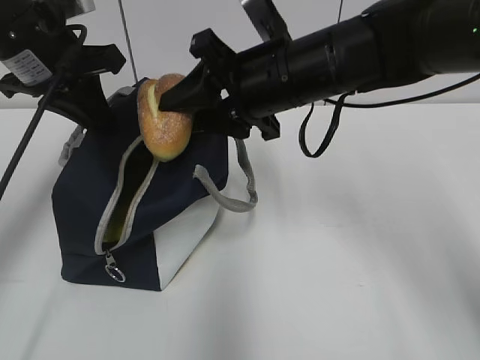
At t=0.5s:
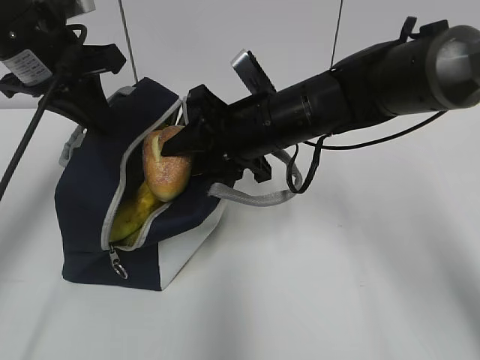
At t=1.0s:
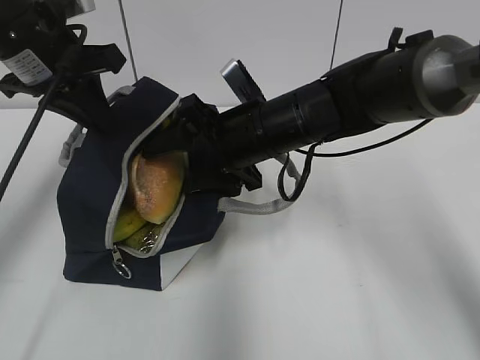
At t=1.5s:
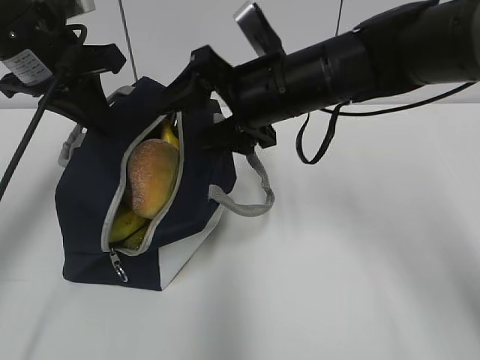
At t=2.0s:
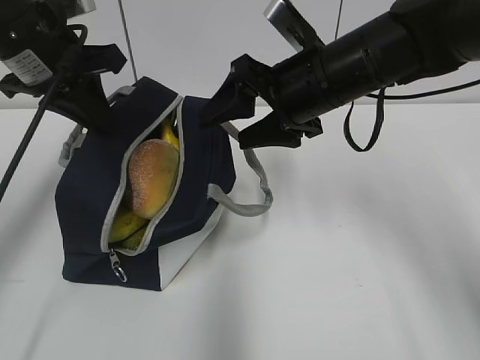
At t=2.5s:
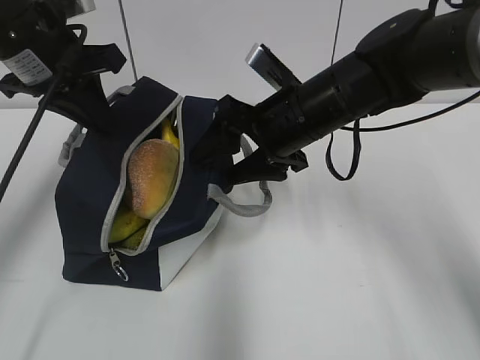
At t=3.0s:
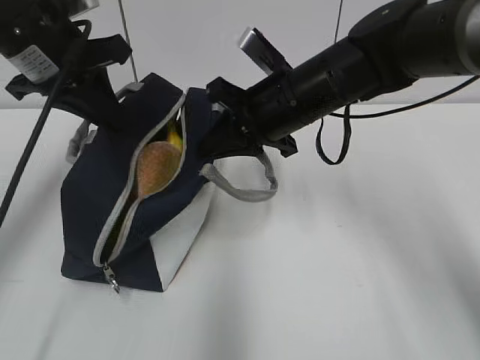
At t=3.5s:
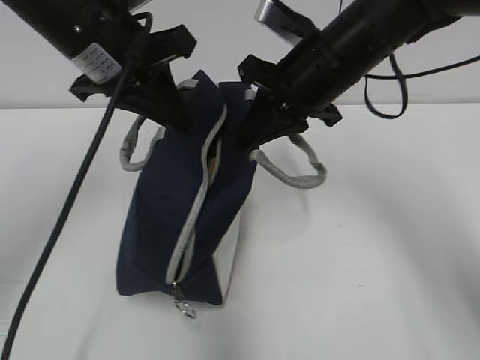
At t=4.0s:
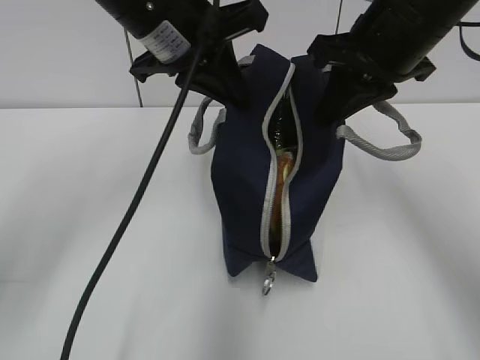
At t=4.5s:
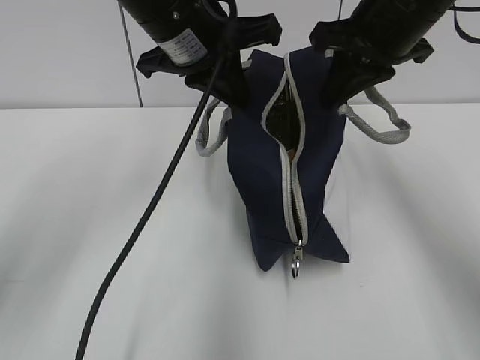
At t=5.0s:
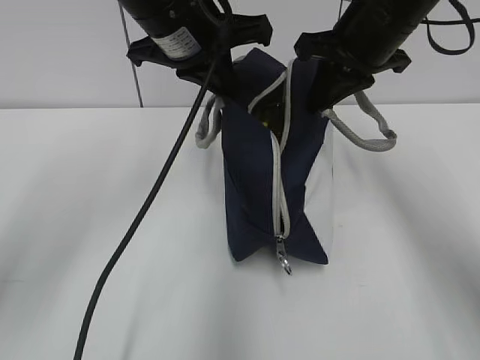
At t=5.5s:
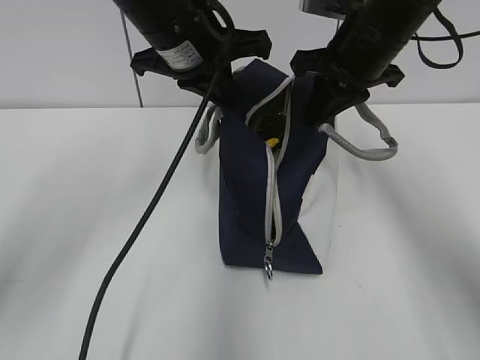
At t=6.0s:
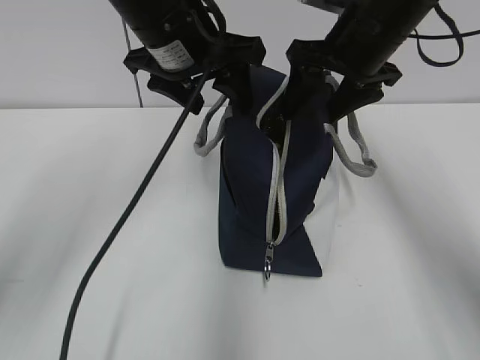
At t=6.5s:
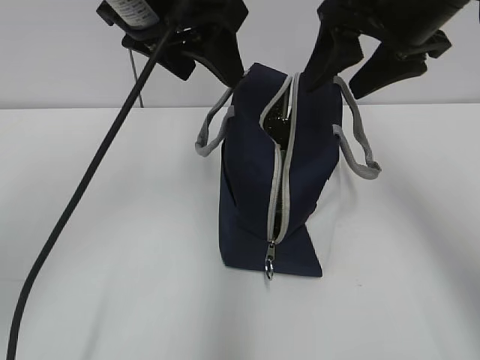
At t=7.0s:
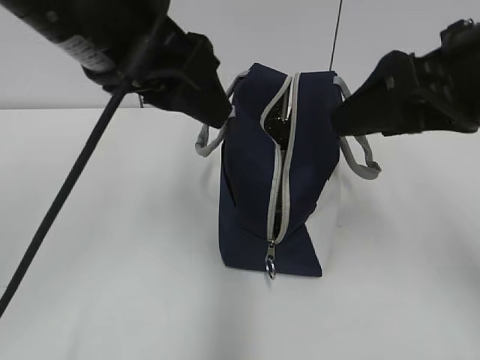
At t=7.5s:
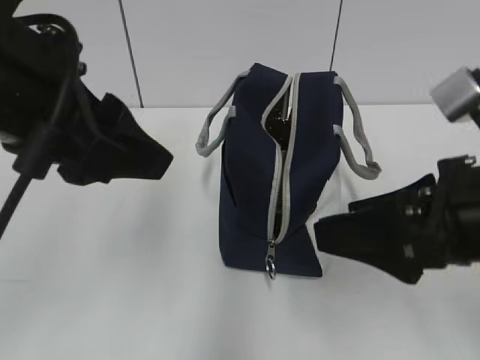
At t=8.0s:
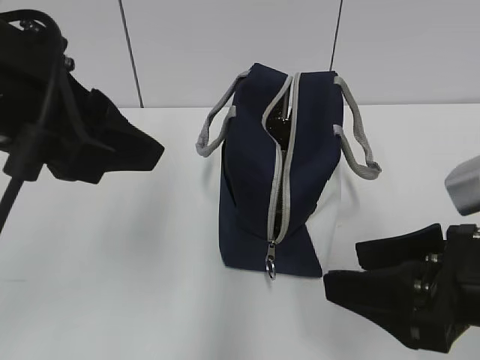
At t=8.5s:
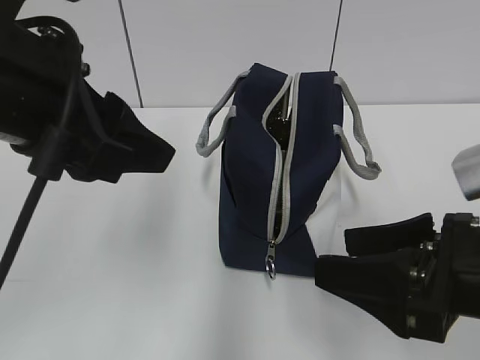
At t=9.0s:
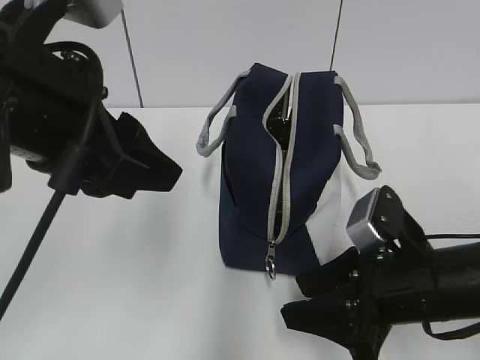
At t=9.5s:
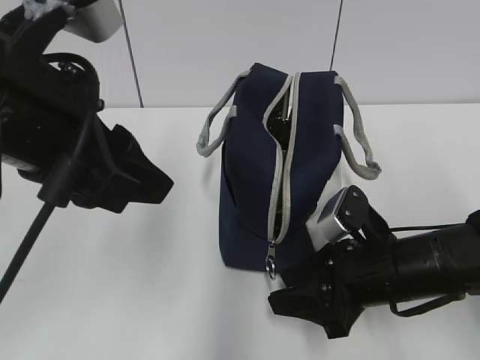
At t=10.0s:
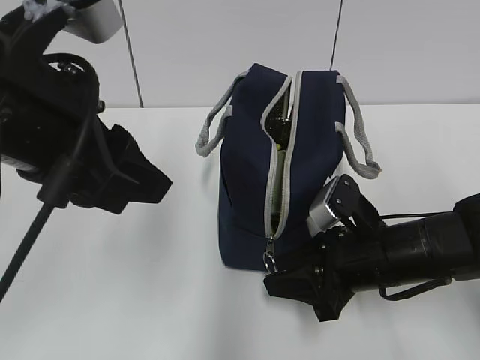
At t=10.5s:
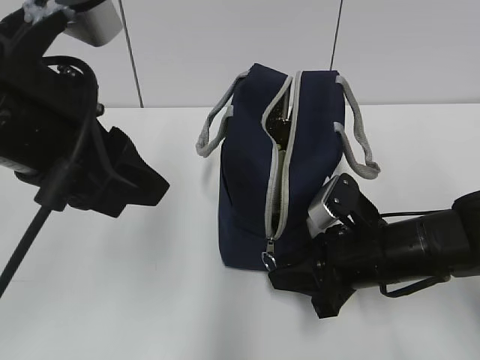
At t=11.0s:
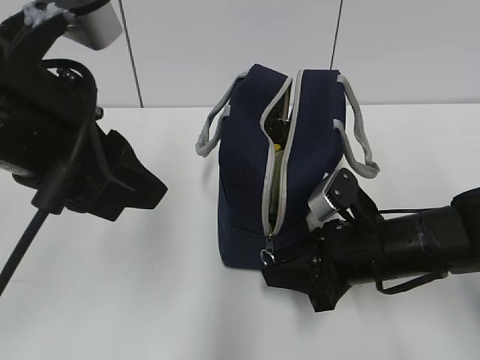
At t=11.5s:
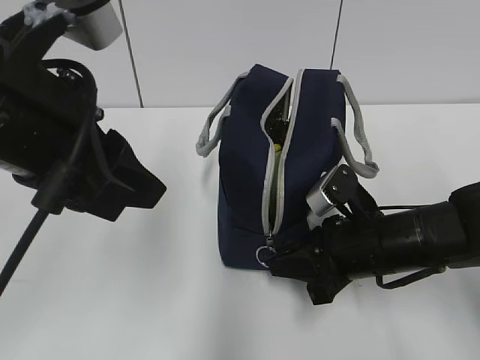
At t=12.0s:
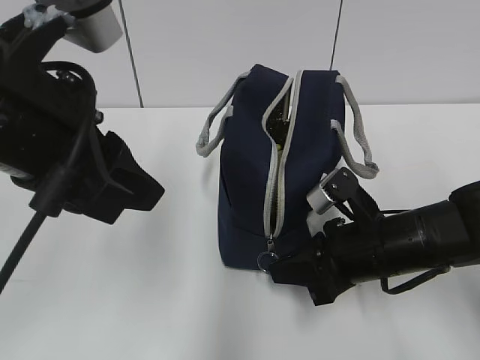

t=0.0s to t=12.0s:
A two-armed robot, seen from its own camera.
Step, t=1.5s to t=2.5s: Grab the lunch bag with your right hand.
Step, t=3.0s to t=5.5s: Move the lunch bag to the right.
t=0.0s to t=2.0s: The right gripper opens up.
t=2.0s to t=4.0s: The left gripper moves to the right, roughly 10 cm; the right gripper goes some 10 cm upward and to the right, and closes.
t=4.0s to t=6.0s: The right gripper heads forward, covering some 5 cm, and opens up. Meanwhile the left gripper opens.
t=6.0s to t=8.0s: The right gripper moves backward, about 25 cm, while the left gripper travels backward and to the left by some 20 cm.
t=8.0s to t=10.0s: The right gripper moves forward and downward, about 15 cm, and closes its fingers.
t=10.0s to t=12.0s: The right gripper closes its fingers.

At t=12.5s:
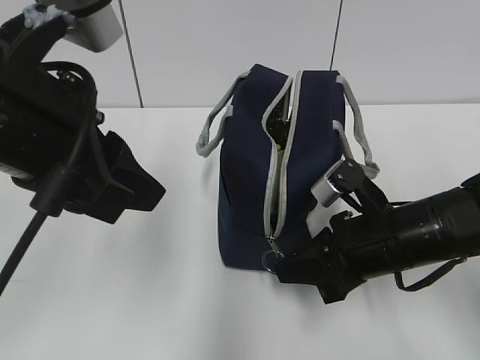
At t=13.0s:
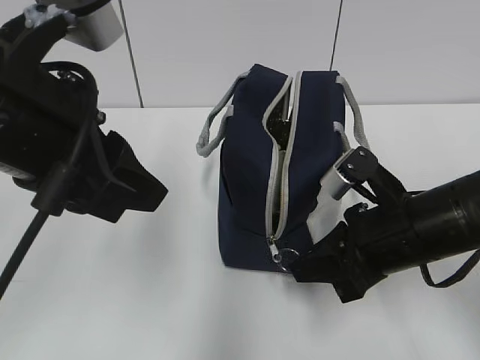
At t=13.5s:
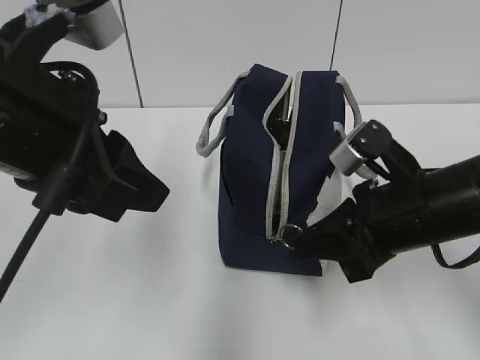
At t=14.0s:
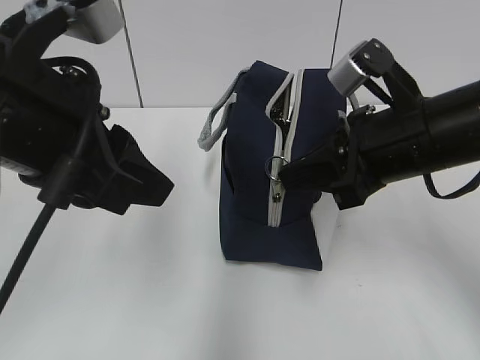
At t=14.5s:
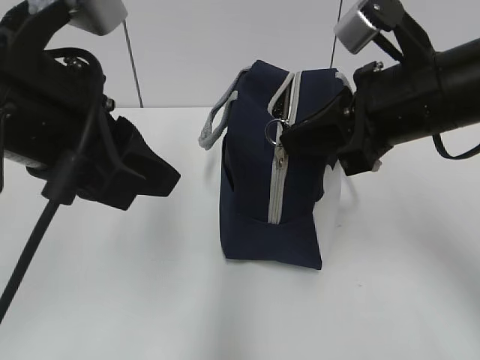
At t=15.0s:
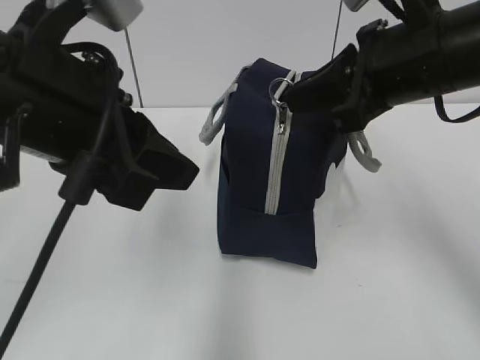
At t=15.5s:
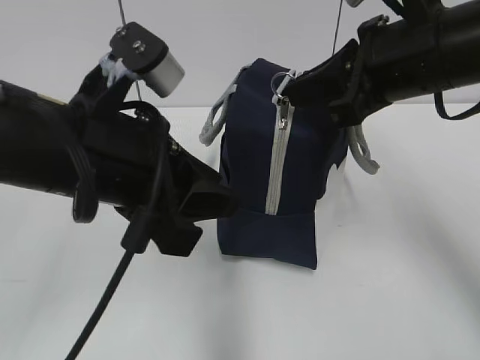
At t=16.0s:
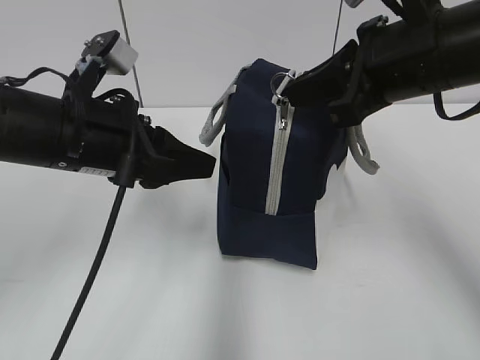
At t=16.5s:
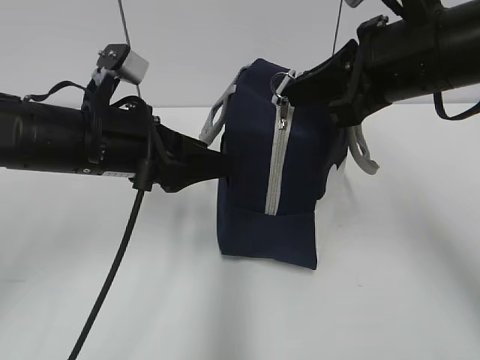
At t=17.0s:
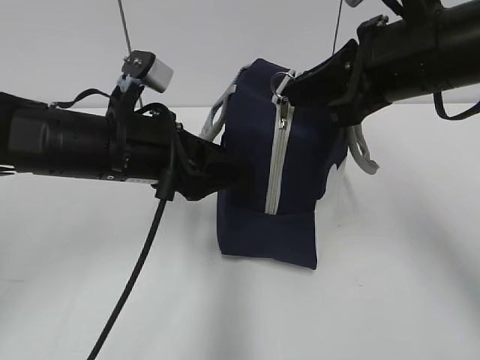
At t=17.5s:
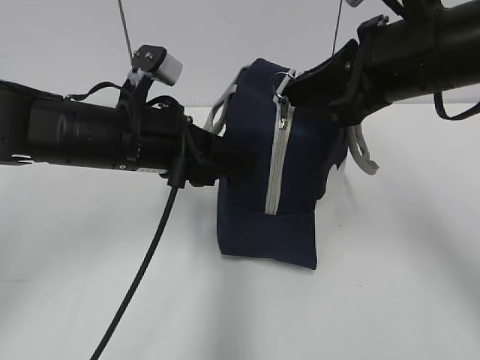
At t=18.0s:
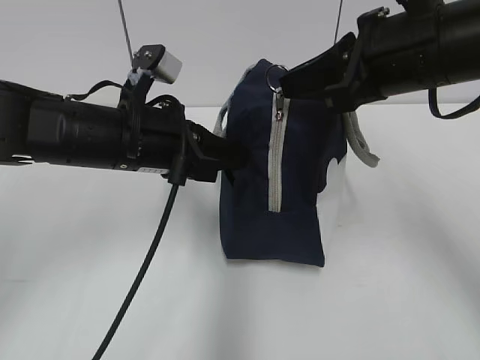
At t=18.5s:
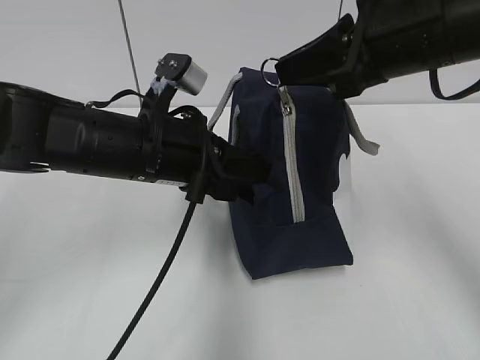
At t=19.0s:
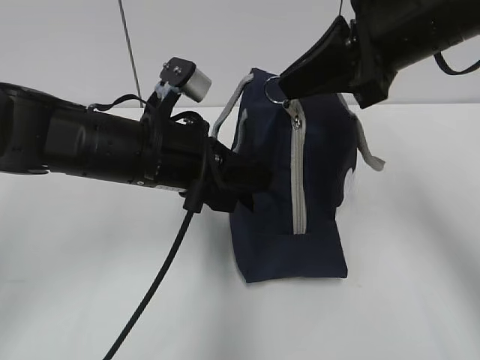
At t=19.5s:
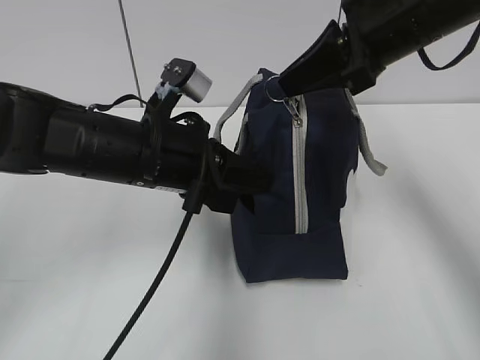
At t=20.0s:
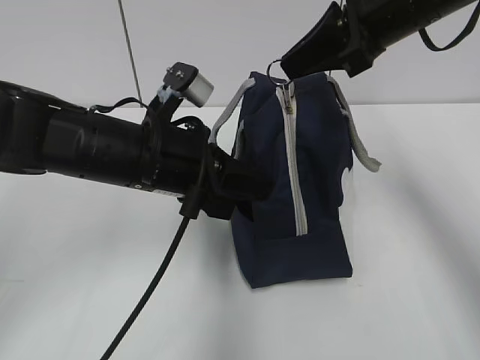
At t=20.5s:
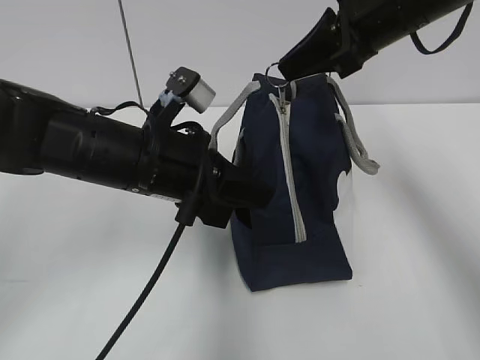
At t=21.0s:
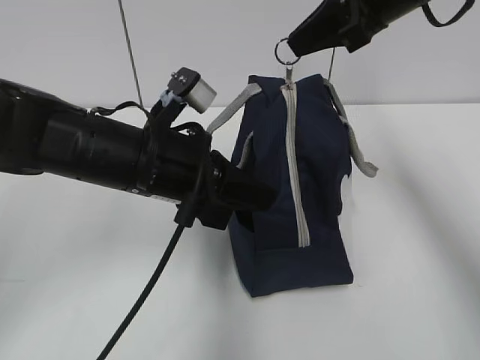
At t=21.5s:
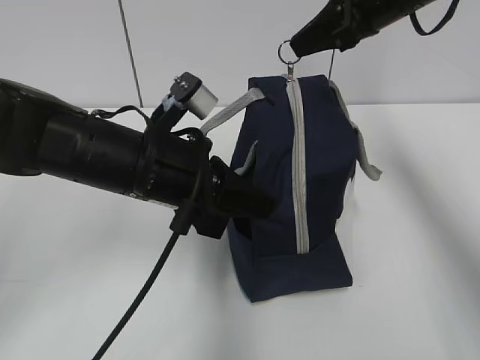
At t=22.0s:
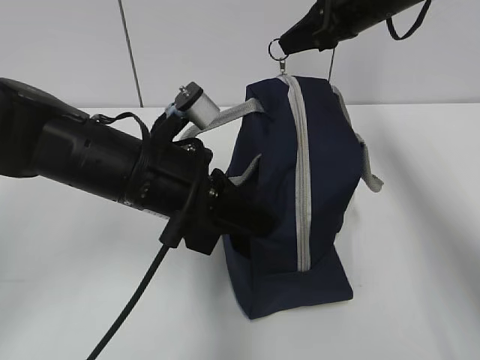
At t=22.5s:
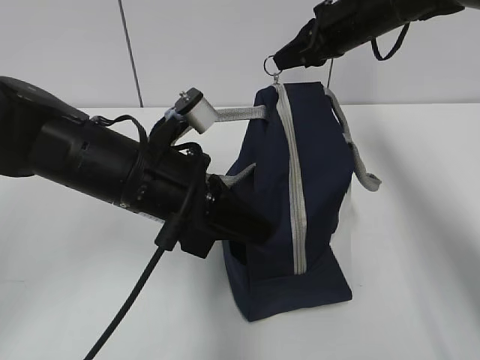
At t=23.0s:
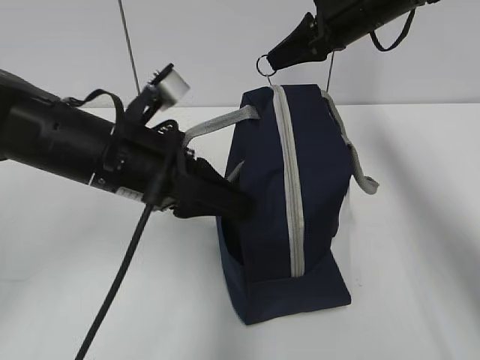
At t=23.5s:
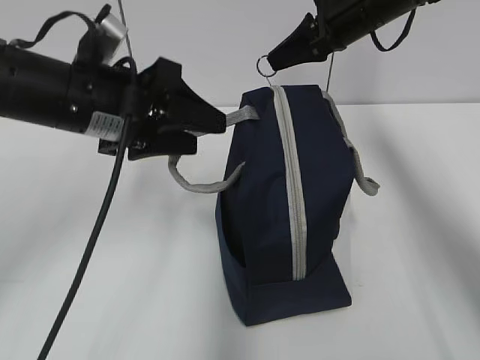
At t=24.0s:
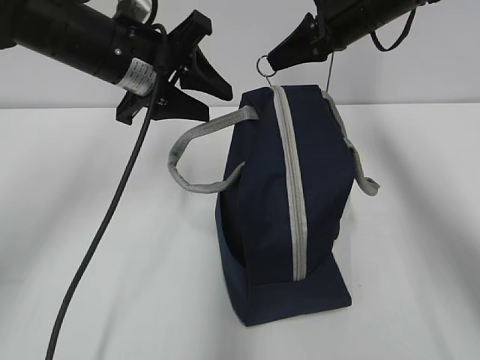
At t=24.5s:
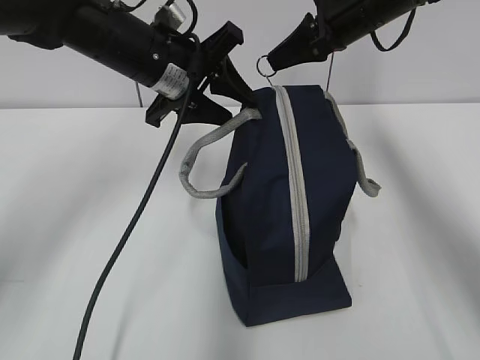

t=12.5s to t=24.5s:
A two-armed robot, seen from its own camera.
Step, t=12.5s to t=17.5s: Grab the lunch bag with your left hand.
t=12.5s to t=14.5s: The right gripper goes some 15 cm upward.
t=14.5s to t=16.5s: The left gripper moves downward and forward, about 15 cm.
t=16.5s to t=18.5s: The left gripper closes.
t=18.5s to t=20.5s: The right gripper goes approximately 5 cm forward.
t=20.5s to t=22.5s: The right gripper shifts some 15 cm forward and downward.
t=22.5s to t=24.5s: The left gripper shifts some 15 cm forward and upward, and opens.

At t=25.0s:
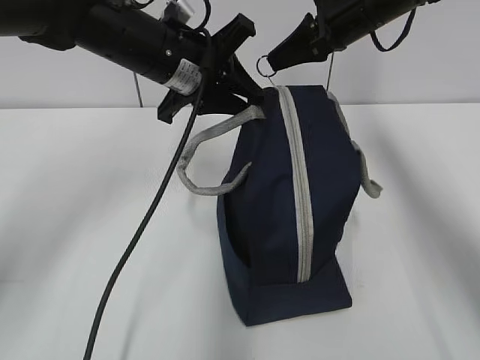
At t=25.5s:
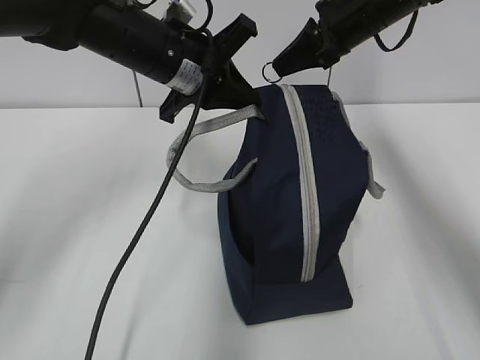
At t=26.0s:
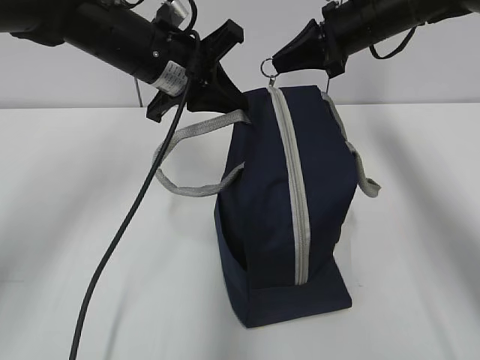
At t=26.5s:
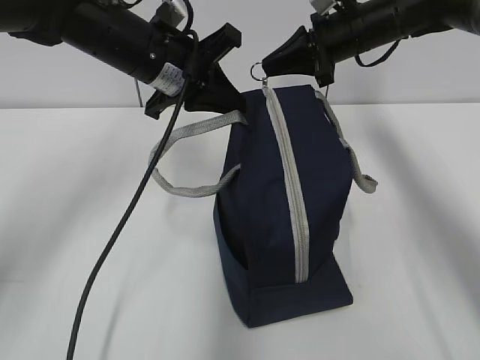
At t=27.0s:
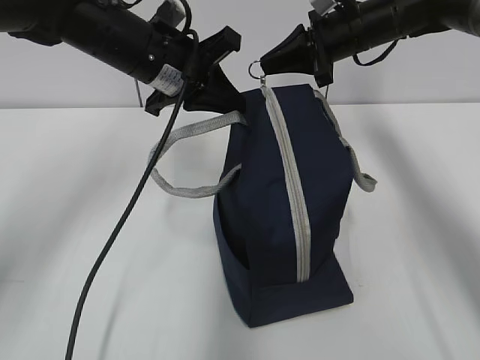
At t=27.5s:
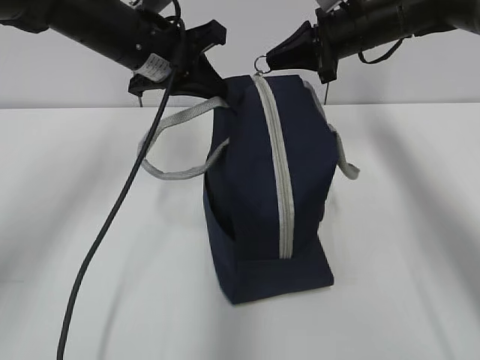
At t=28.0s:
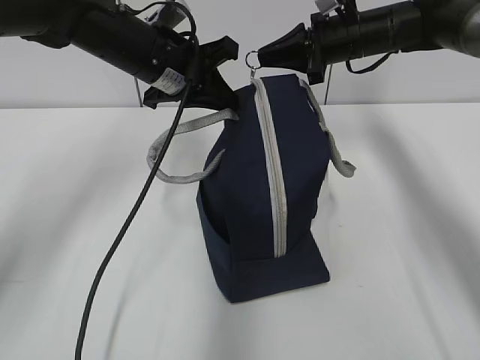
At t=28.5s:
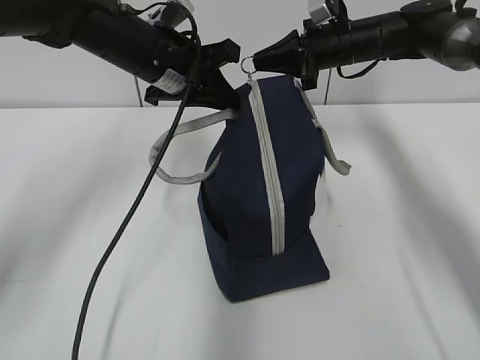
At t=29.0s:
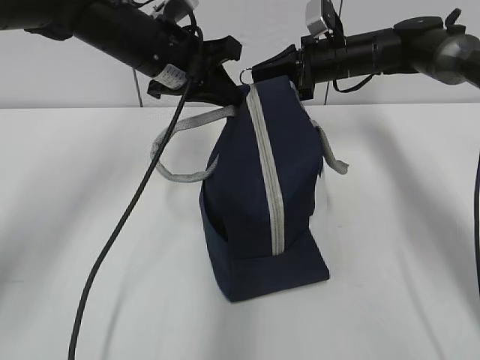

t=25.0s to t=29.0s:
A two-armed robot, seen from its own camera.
t=25.0s to t=27.0s: The right gripper ends up roughly 5 cm from where it was. The left gripper closes its fingers.
t=27.0s to t=29.0s: The right gripper moves downward, approximately 5 cm.
